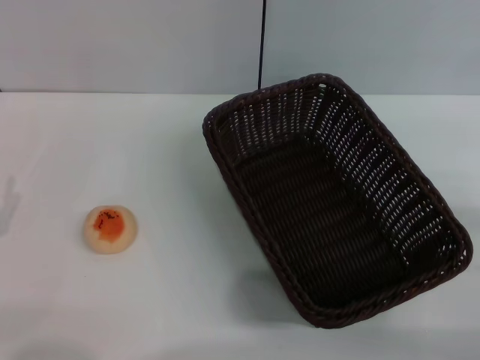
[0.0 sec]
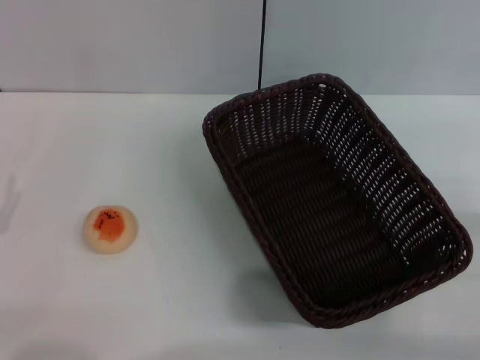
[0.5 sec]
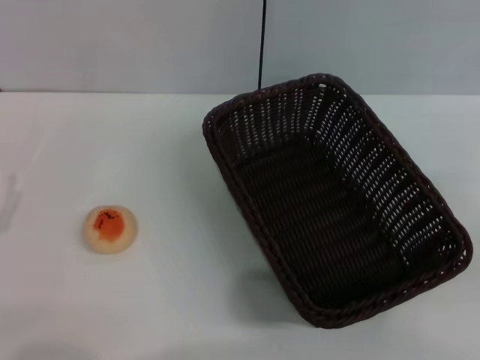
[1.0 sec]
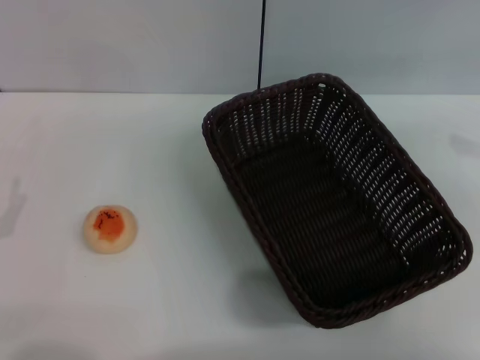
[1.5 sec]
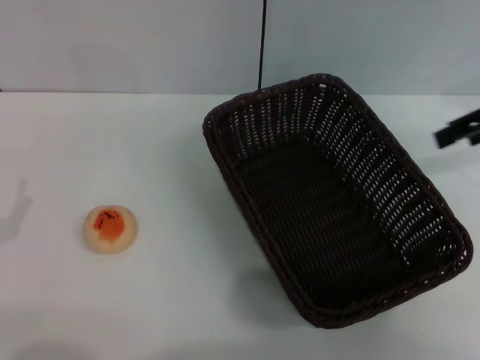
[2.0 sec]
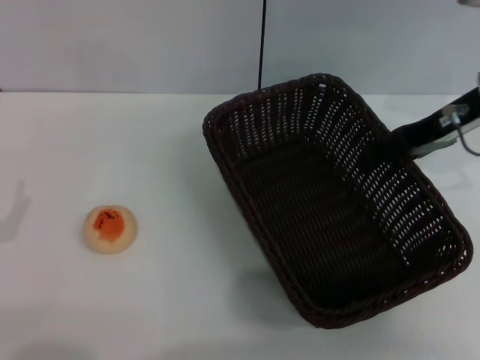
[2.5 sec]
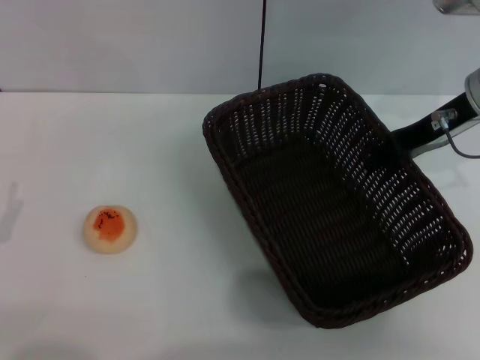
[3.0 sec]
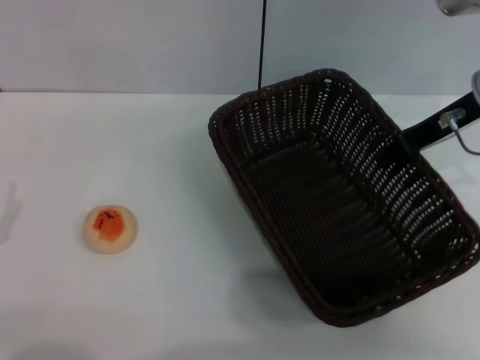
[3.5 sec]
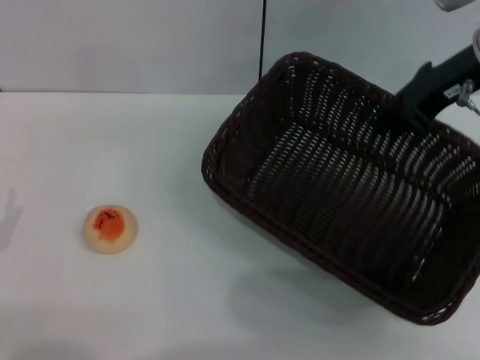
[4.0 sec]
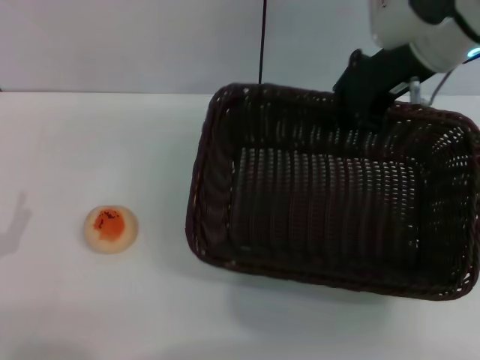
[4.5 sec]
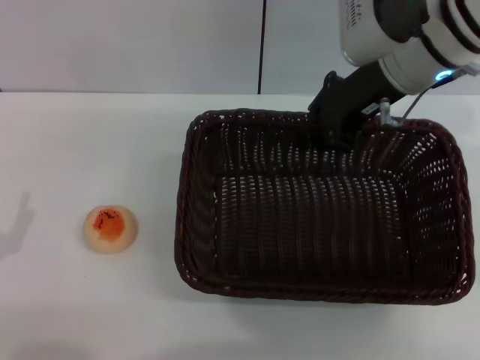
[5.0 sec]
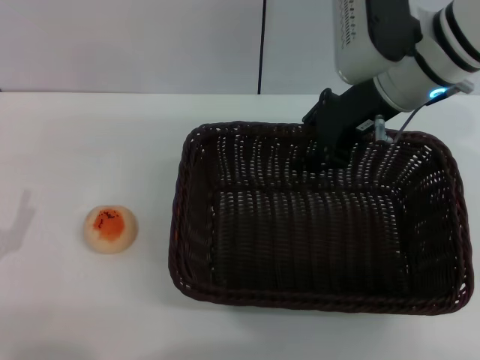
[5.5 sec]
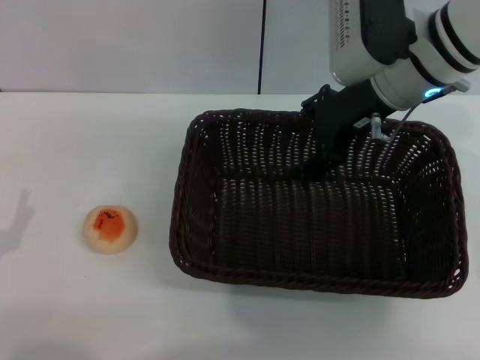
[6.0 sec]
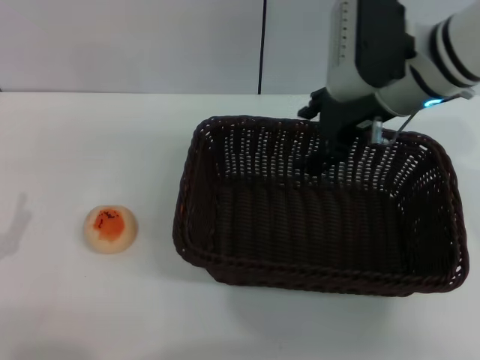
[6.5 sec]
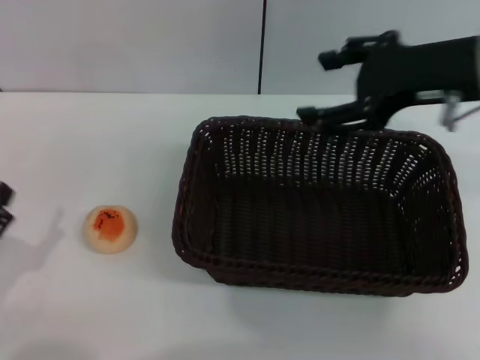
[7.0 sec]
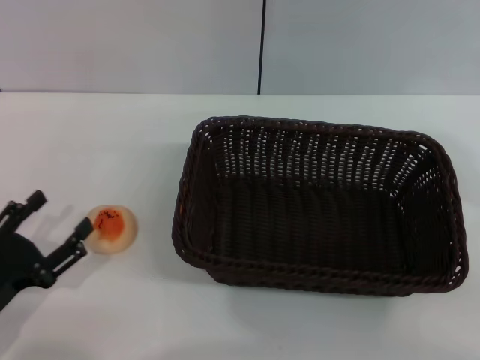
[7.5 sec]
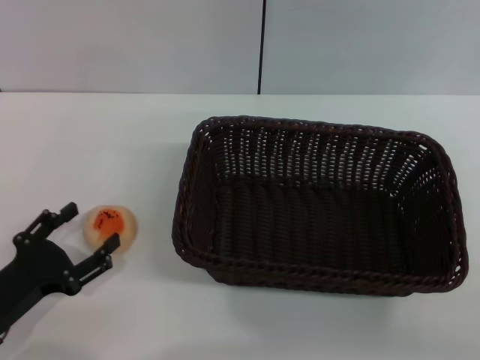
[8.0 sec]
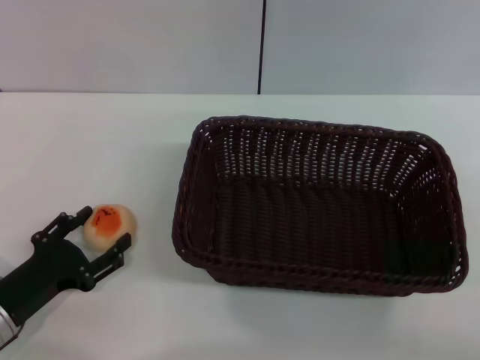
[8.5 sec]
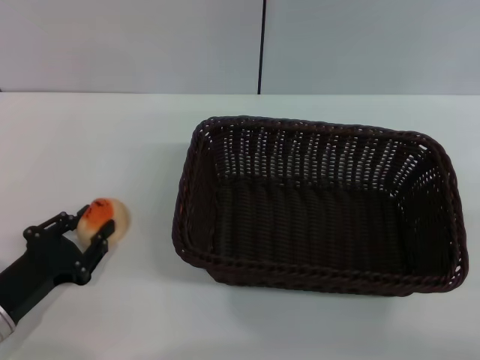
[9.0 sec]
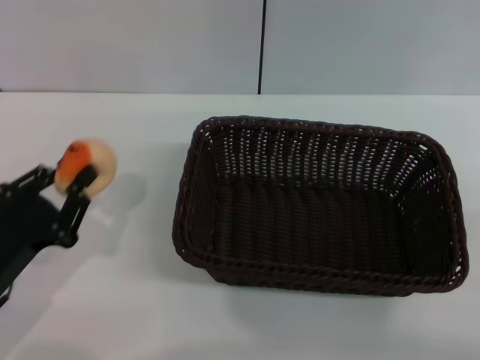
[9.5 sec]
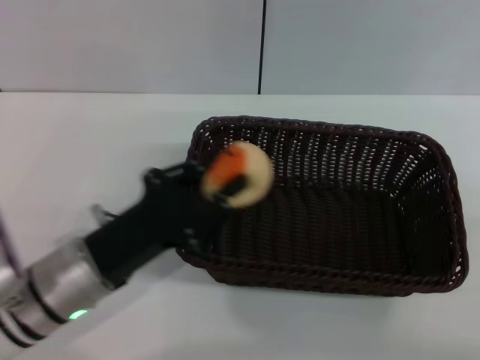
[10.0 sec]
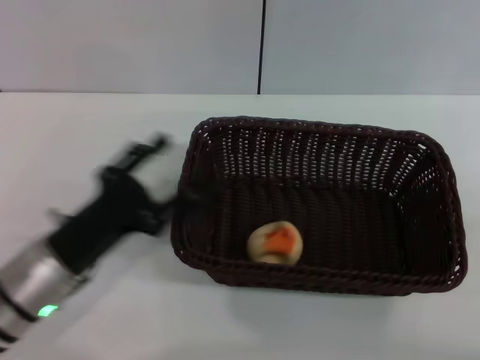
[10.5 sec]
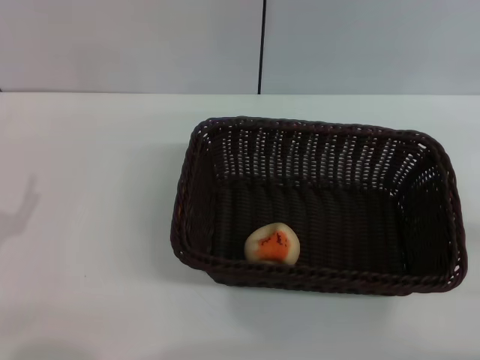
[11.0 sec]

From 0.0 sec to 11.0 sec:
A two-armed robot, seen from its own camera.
Step, from 0.0 sec to 7.0 sec: Move the basket to the center of view with the right gripper.
Step, from 7.5 sec to 9.0 sec: Pick up the egg yolk pastry with the left gripper.
Step, from 9.5 sec to 10.0 sec: Place the egg yolk pastry into the basket with the left gripper.
From 0.0 sec to 2.0 sec: The right gripper is displaced forward and upward by roughly 25 cm.
From 2.0 sec to 3.5 sec: The right gripper heads to the left and downward, covering some 10 cm, and closes.
From 3.5 sec to 5.5 sec: The right gripper goes about 10 cm to the left.
From 5.5 sec to 7.5 sec: The right gripper shifts about 25 cm to the right and backward, and opens its fingers.
From 9.0 sec to 11.0 sec: The left gripper travels to the right and back again, some 10 cm each way, and closes, then reopens.
